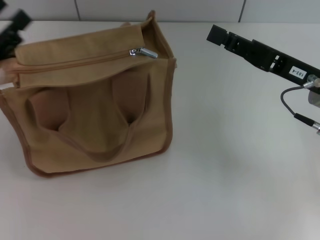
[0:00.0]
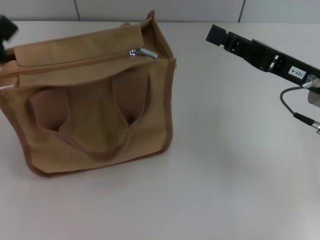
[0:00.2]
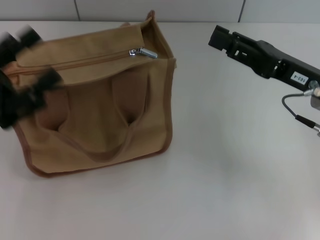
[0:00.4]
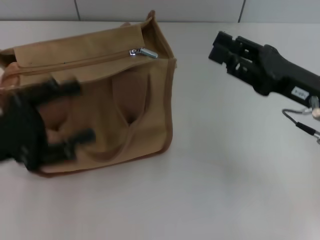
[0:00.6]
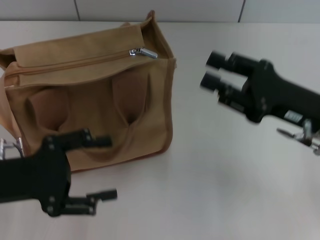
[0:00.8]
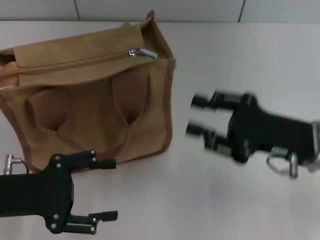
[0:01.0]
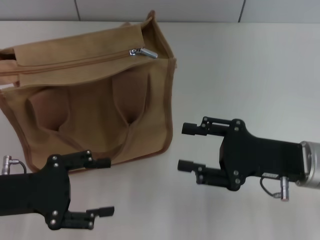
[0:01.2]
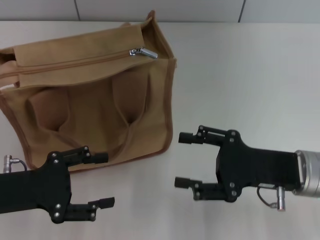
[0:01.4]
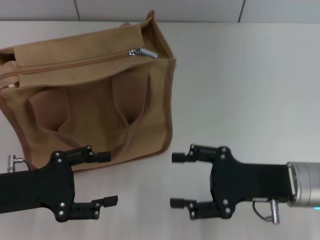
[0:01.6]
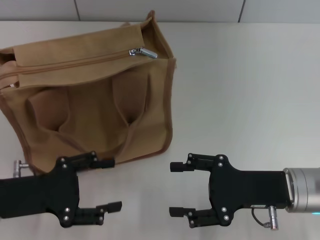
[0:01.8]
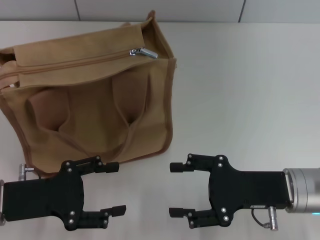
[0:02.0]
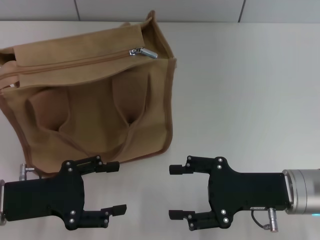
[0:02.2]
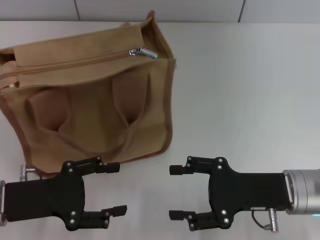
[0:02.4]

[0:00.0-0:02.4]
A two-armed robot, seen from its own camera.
0:00.0 to 0:01.2: The left gripper shifts by some 5 cm. Meanwhile the right gripper shifts about 5 cm backward.
0:01.2 to 0:02.4: The grippers stay close to where they were, moving slightly.

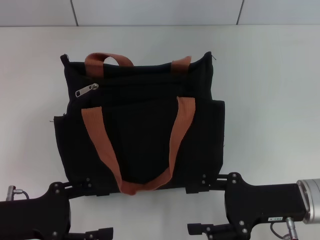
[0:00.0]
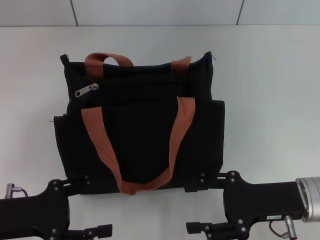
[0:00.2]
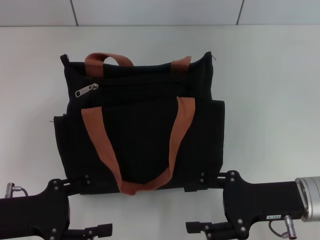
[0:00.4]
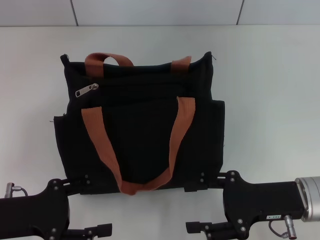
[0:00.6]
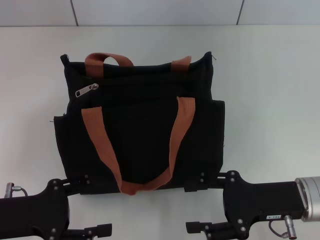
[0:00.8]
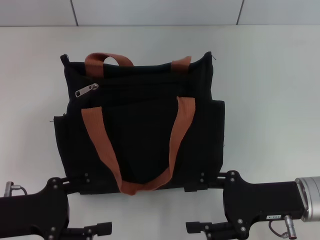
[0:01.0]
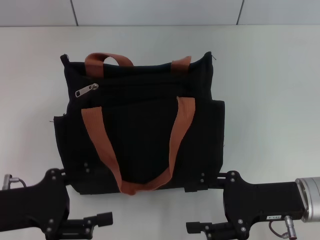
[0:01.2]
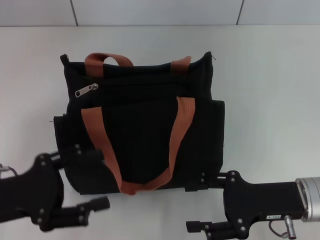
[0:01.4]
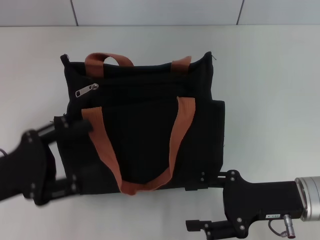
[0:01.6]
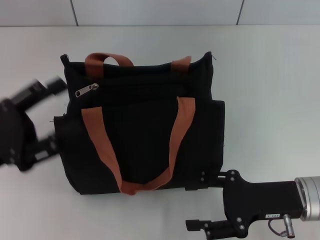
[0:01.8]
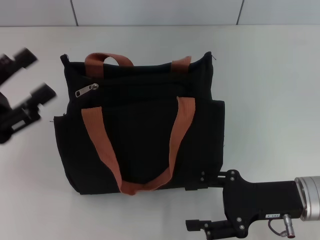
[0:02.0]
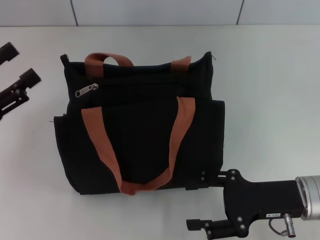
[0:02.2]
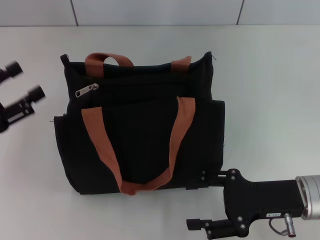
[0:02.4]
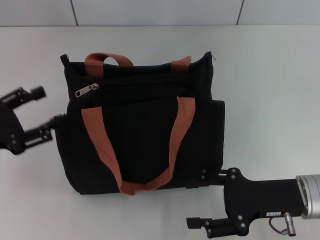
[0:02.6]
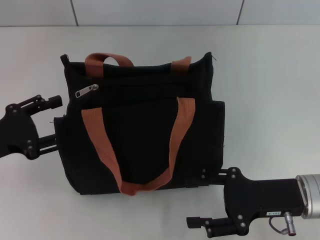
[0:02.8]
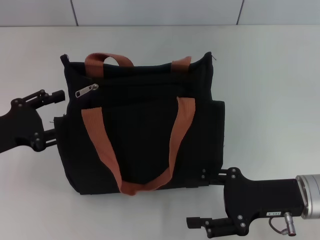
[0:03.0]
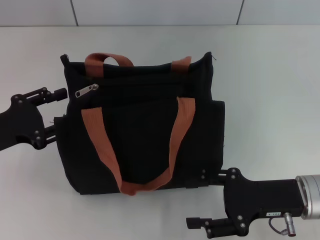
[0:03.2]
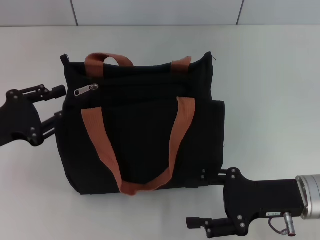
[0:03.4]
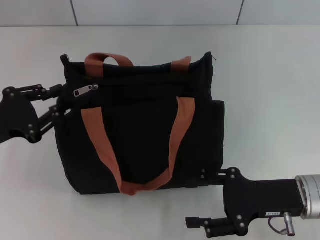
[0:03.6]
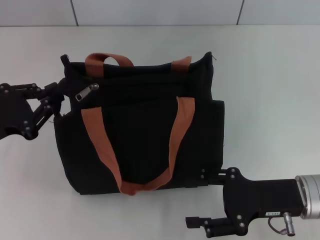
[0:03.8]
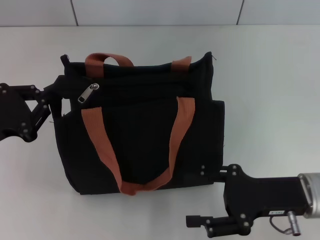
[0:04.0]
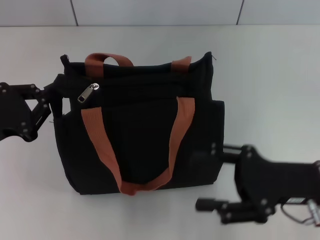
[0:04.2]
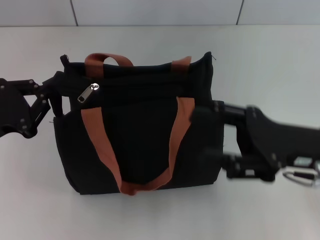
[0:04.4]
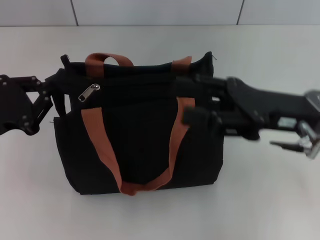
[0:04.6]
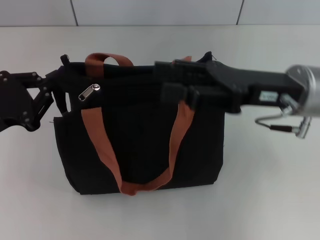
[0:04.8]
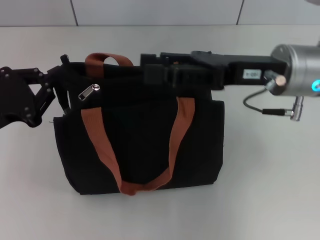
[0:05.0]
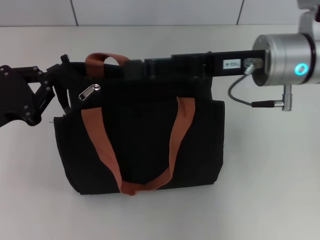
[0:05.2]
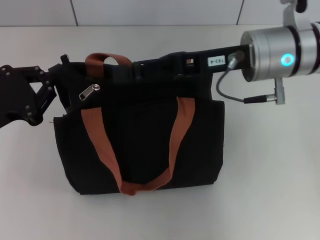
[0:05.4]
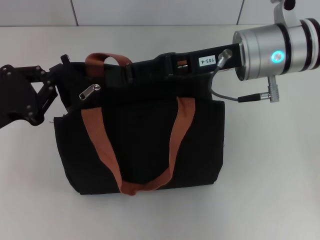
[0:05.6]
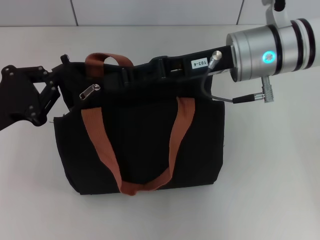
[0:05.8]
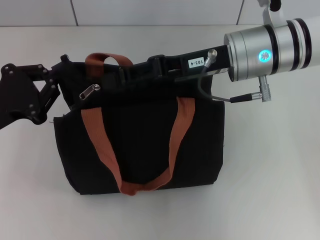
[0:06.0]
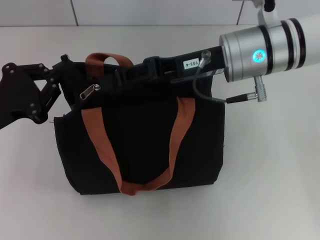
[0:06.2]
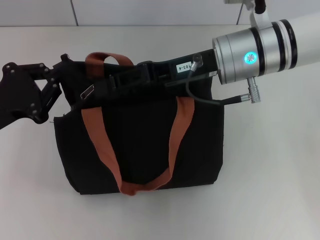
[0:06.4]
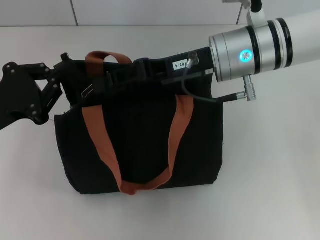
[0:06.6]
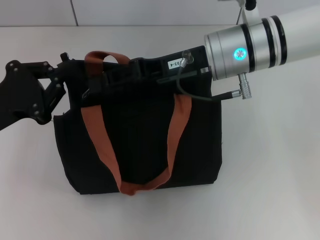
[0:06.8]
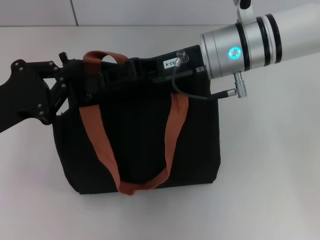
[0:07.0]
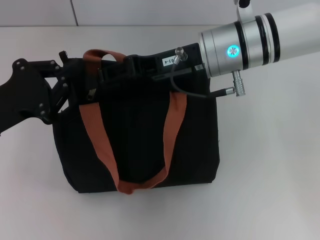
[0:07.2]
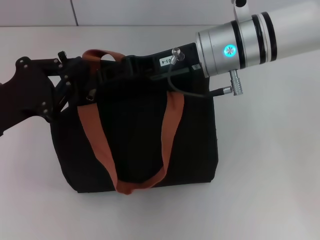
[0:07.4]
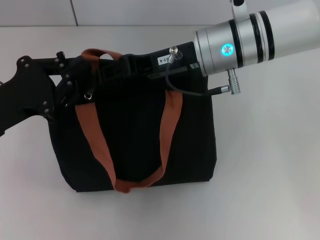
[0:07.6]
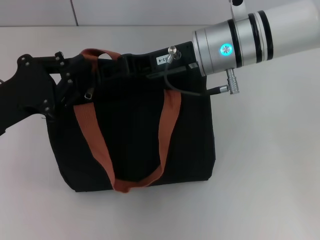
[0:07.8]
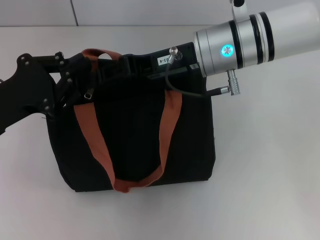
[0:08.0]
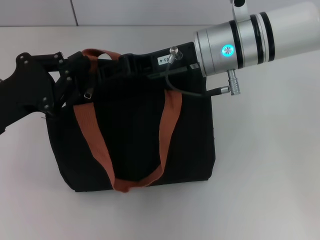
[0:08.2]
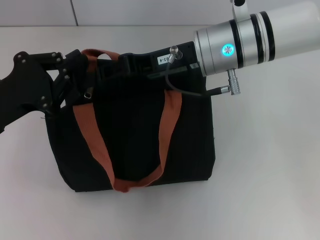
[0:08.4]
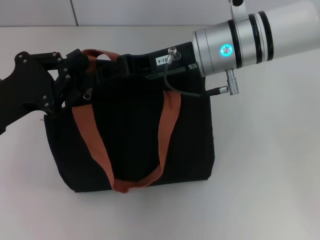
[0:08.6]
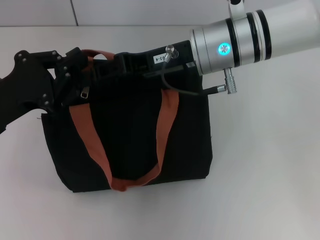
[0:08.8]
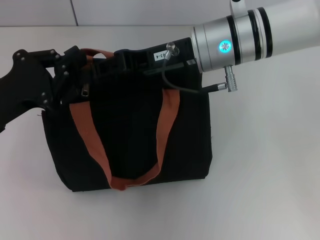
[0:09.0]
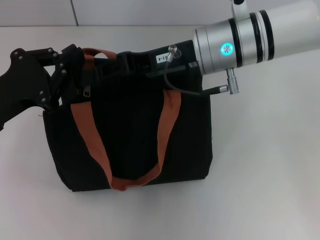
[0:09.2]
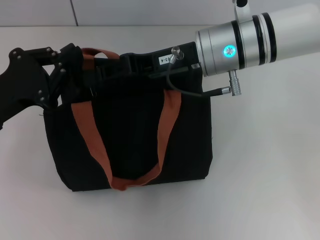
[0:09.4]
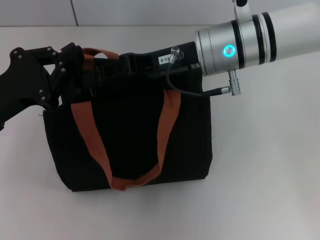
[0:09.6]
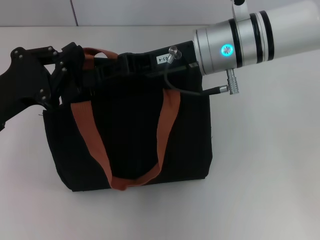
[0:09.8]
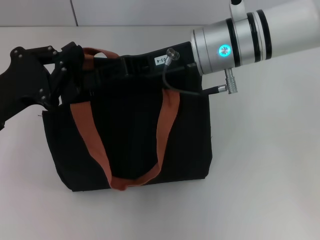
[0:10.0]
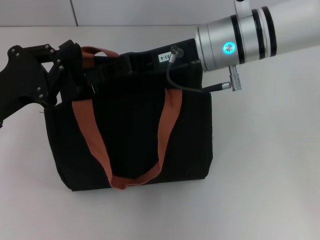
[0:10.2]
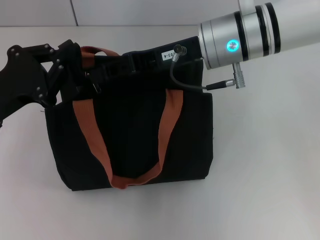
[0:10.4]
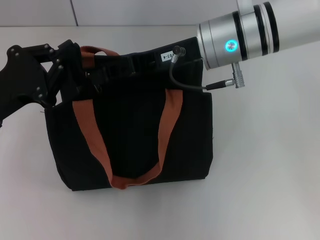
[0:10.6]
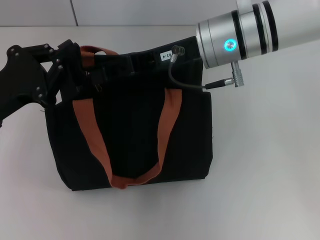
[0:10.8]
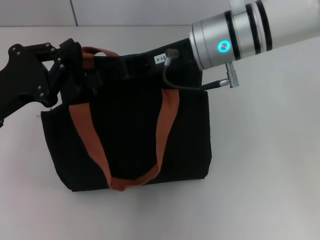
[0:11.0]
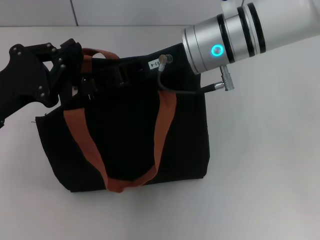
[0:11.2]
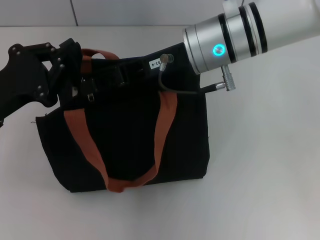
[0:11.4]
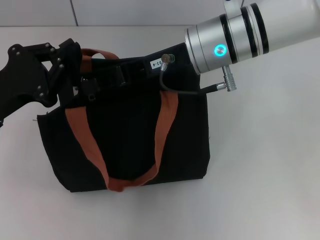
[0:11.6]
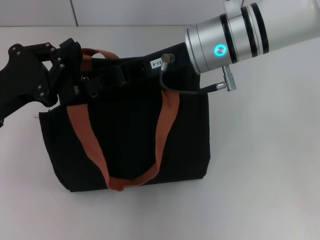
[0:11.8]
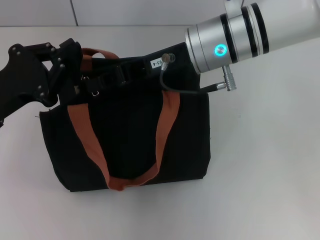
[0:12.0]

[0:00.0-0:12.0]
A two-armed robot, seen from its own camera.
0:01.6 to 0:03.0: The left gripper moves forward, approximately 5 cm.
0:03.0 to 0:04.4: The left gripper closes; the right gripper heads upward, covering approximately 5 cm.
0:04.4 to 0:06.0: The right gripper is displaced forward, to the left and upward by roughly 15 cm.
0:06.0 to 0:07.6: The grippers stay close to where they were, moving slightly.
0:07.6 to 0:09.0: Neither gripper changes place.
0:09.0 to 0:12.0: The grippers stay close to where they were, moving slightly.

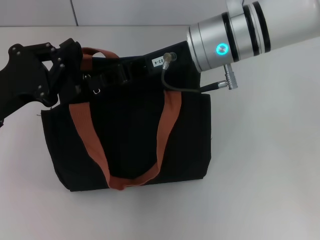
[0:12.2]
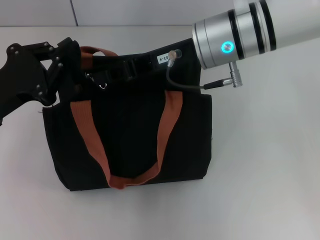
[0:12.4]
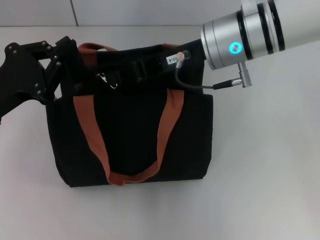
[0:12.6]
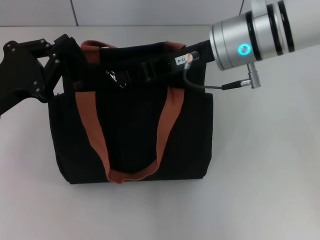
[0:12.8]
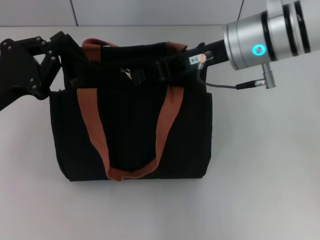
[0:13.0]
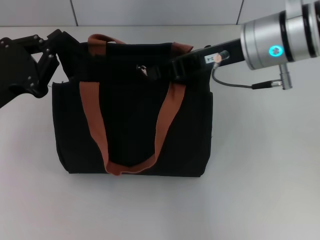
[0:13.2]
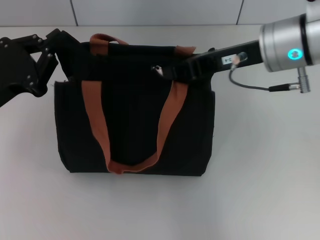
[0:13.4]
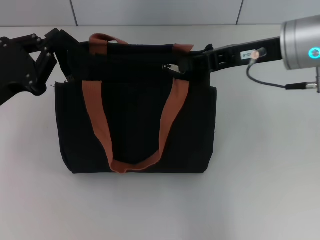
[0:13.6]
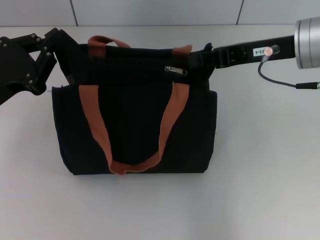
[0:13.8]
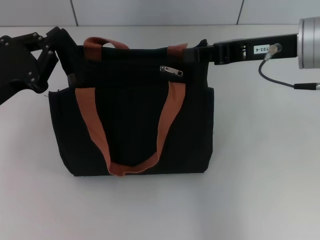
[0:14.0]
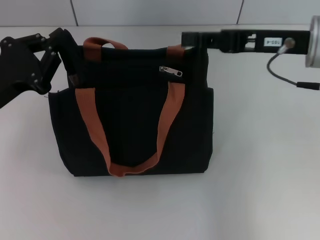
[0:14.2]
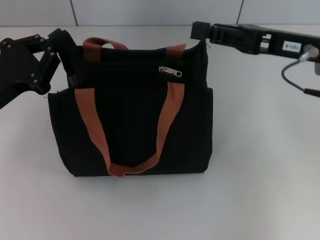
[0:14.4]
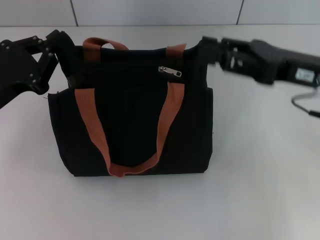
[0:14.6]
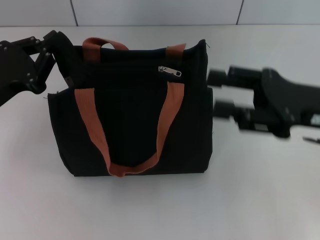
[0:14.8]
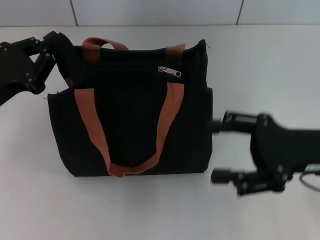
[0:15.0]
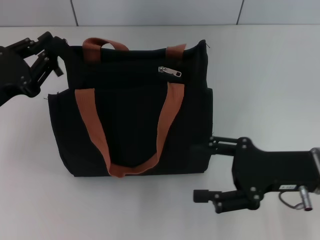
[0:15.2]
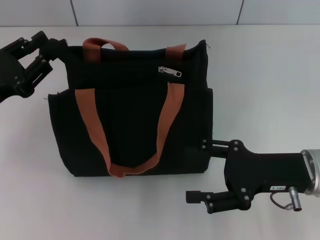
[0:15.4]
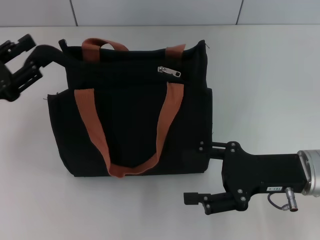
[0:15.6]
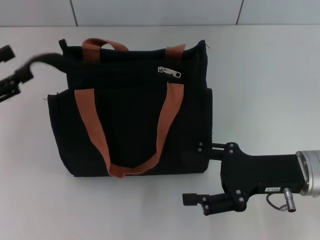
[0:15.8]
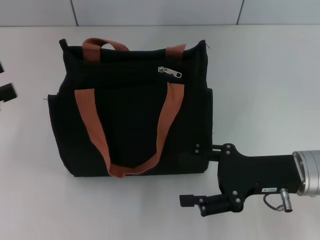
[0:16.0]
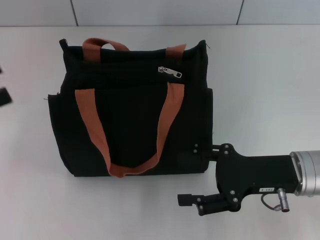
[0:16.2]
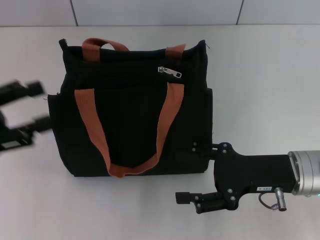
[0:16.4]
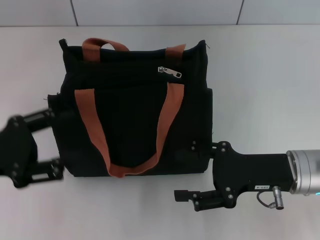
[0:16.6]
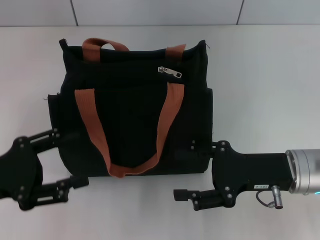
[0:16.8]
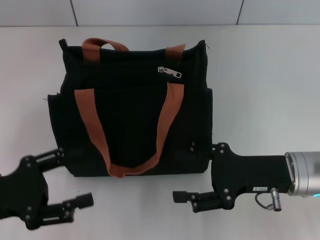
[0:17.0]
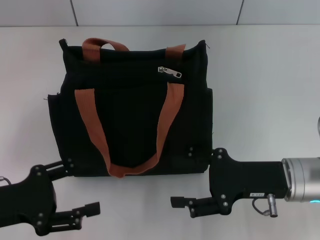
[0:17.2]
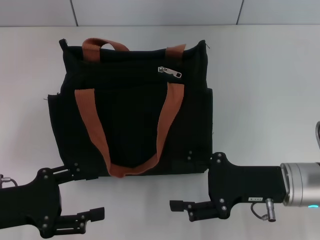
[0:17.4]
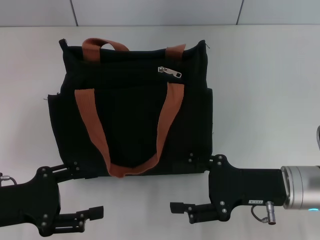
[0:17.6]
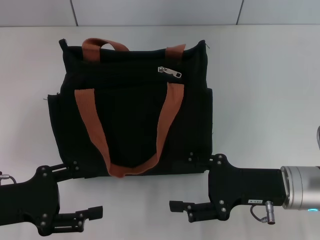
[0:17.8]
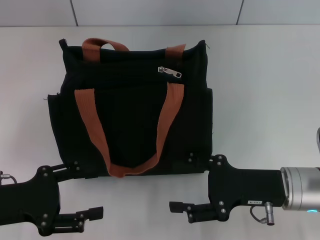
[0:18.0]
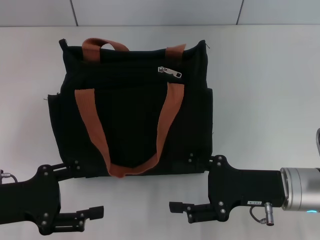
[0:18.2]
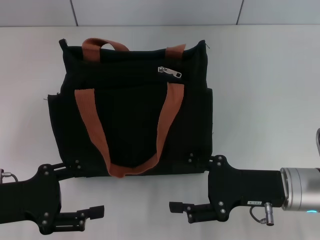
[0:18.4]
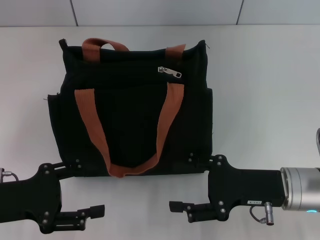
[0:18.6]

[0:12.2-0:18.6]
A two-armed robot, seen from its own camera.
Step, 0:14.0 to 0:15.8: Grab the zipper with your left hand.
0:12.2 to 0:13.8: The right gripper travels to the right by some 10 cm.
0:13.8 to 0:15.4: The right gripper goes some 15 cm downward and backward, and opens up.
0:15.4 to 0:17.0: The left gripper travels backward by approximately 10 cm, and opens.
0:17.0 to 0:18.6: There are only small adjustments of the grippers.

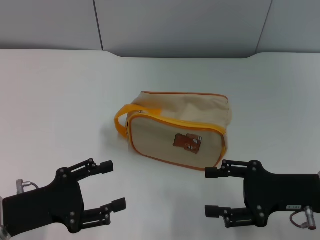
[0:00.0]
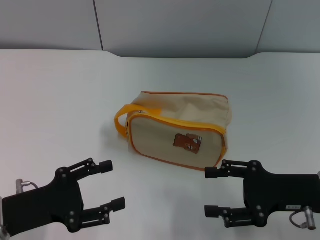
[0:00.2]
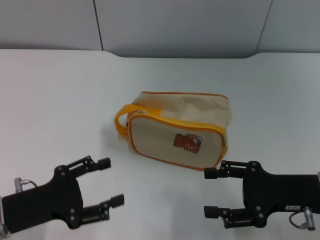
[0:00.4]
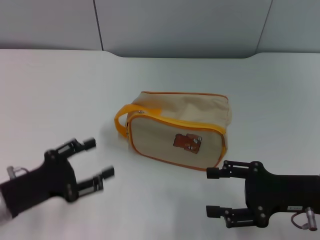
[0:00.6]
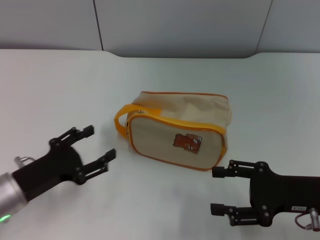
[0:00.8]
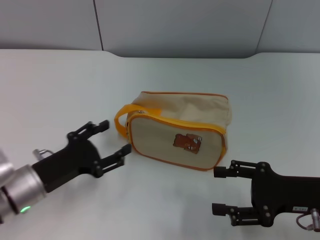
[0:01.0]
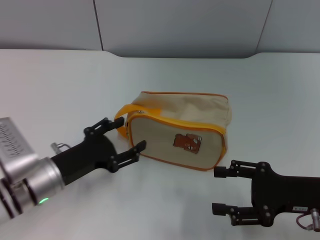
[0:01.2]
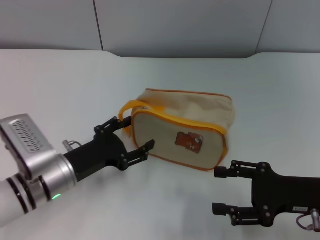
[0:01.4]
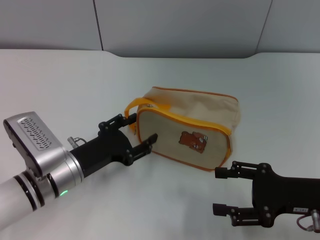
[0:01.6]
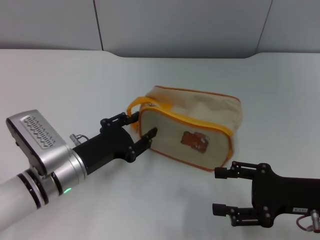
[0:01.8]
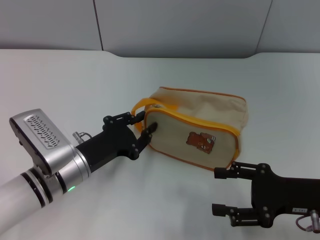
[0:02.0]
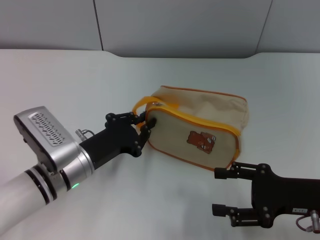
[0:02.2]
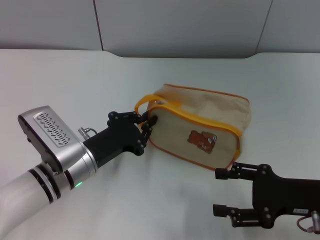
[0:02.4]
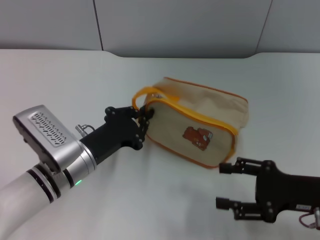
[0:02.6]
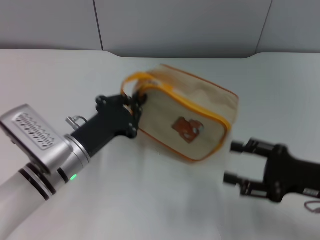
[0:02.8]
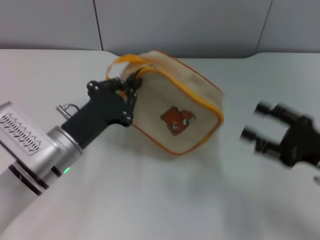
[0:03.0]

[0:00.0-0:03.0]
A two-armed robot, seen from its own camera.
0:00.0 to 0:01.6: The left gripper heads to the right and forward, covering about 10 cm.
0:01.6 to 0:03.0: The left gripper closes its fingers.
